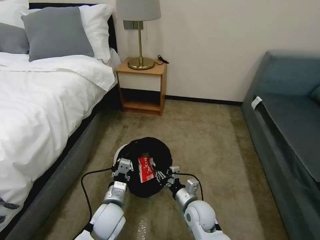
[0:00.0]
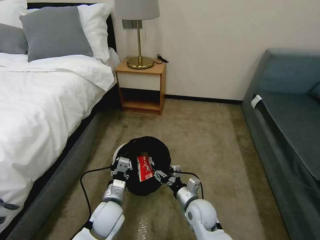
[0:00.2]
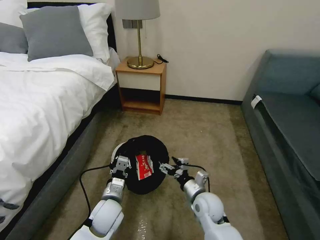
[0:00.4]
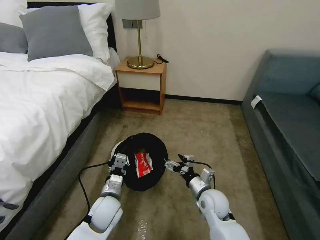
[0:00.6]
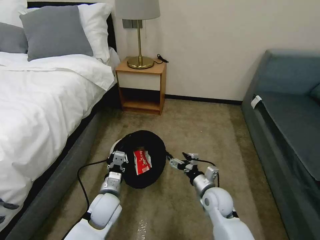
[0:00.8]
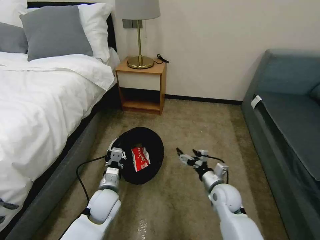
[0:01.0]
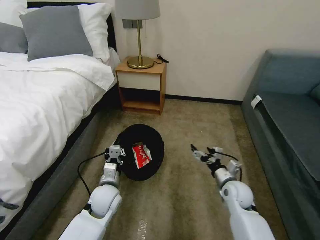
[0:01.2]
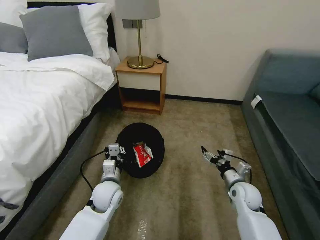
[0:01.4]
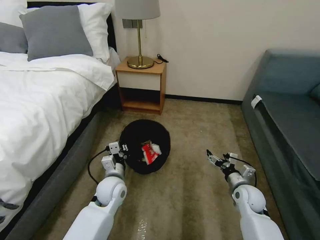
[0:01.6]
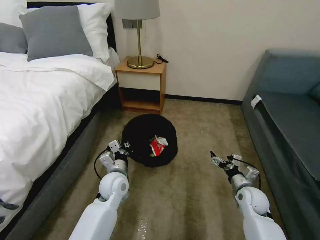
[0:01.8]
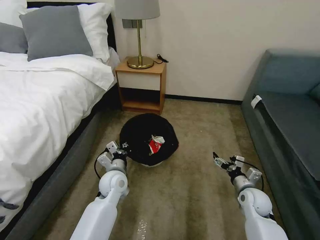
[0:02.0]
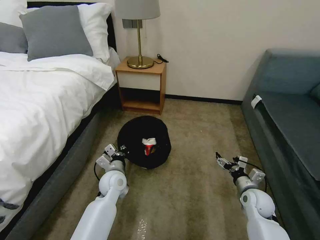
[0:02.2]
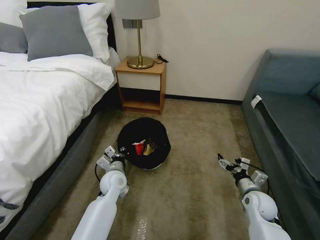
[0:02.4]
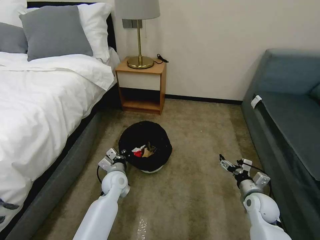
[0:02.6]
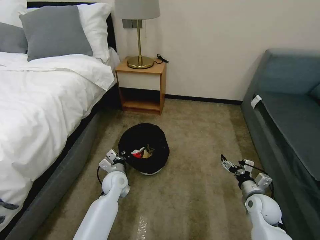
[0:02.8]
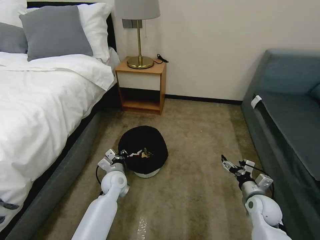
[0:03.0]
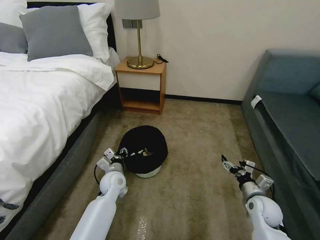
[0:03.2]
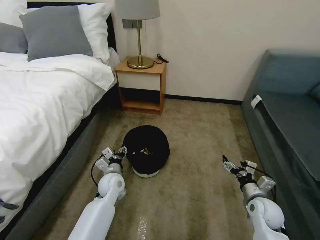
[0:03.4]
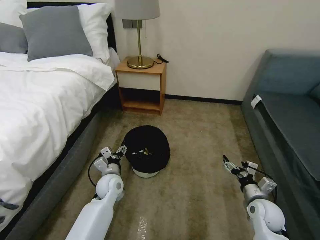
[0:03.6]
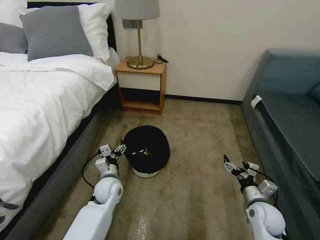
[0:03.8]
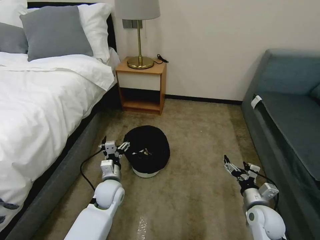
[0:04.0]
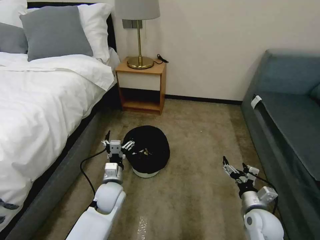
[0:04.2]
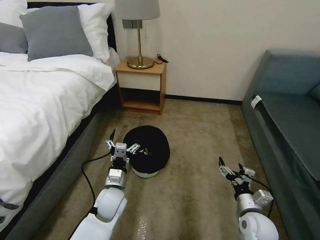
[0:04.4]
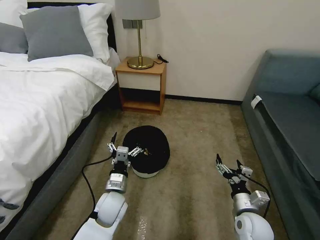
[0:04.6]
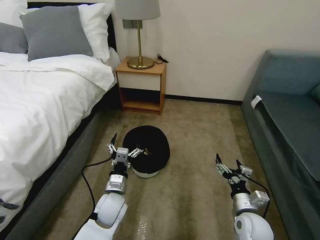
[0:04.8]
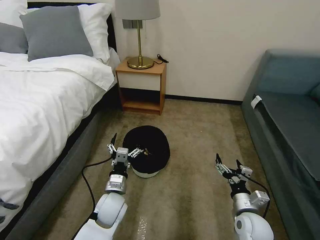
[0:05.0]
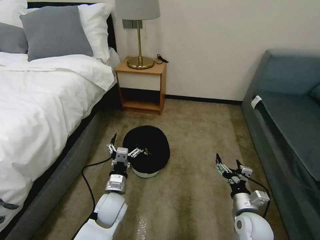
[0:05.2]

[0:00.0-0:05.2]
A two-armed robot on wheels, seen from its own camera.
Task of the whole recording: Pick up the trash bin, then pick up the garbage on the floor and place it into the trash bin.
0:00.0 to 0:01.8: The right gripper travels to the right by about 20 cm, and opens up, while the left gripper heads forward, covering approximately 10 cm.
0:01.8 to 0:03.4: The right gripper shifts by about 5 cm. Meanwhile the left gripper shifts by about 5 cm, and opens its fingers.
0:03.4 to 0:05.2: The left gripper travels backward by about 10 cm, while the right gripper shifts about 10 cm to the left and backward.
